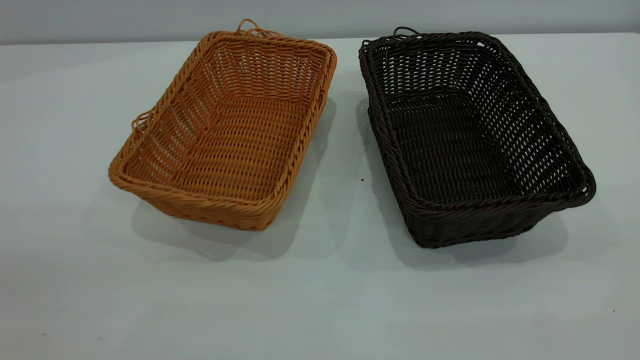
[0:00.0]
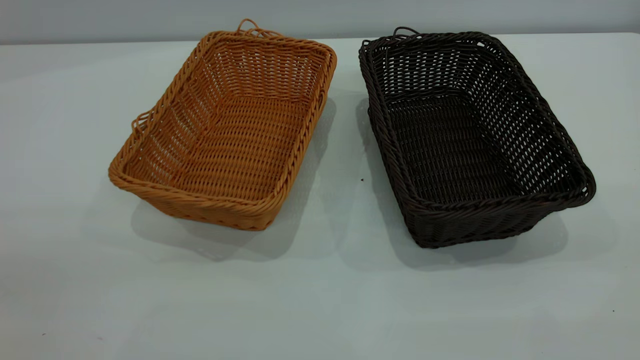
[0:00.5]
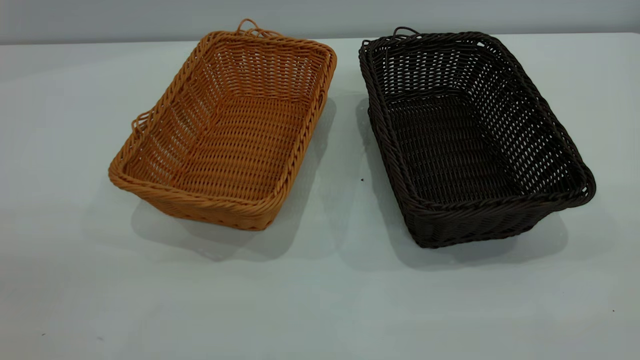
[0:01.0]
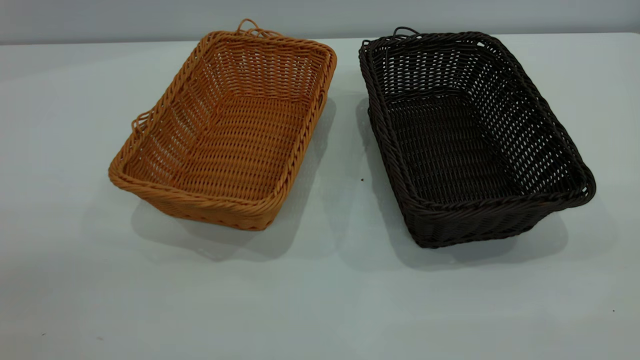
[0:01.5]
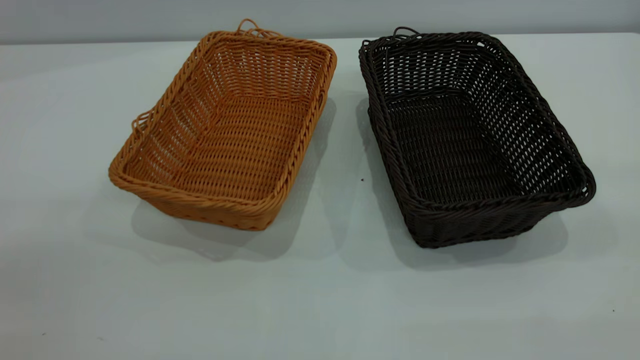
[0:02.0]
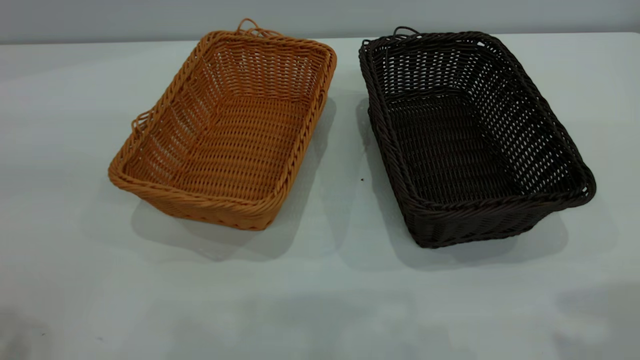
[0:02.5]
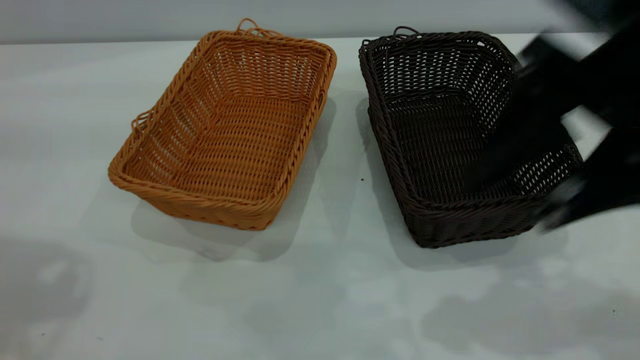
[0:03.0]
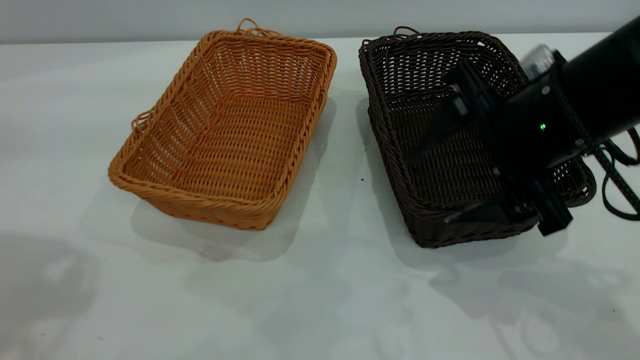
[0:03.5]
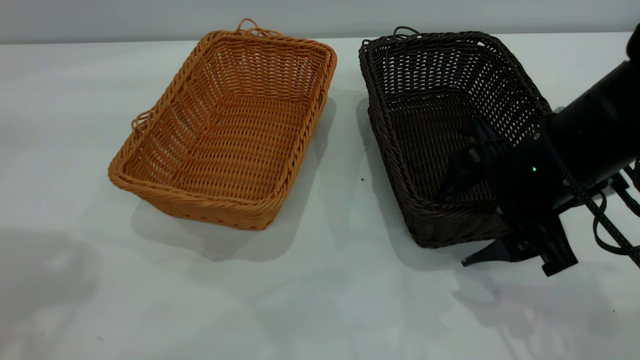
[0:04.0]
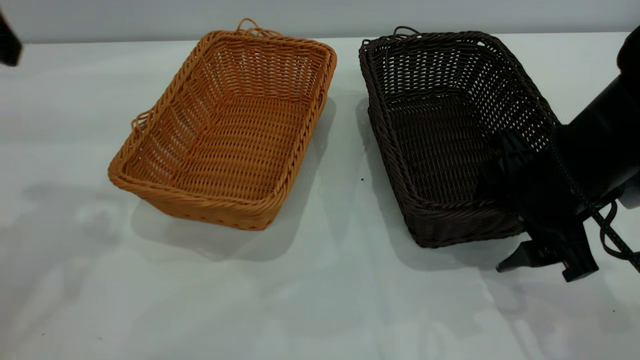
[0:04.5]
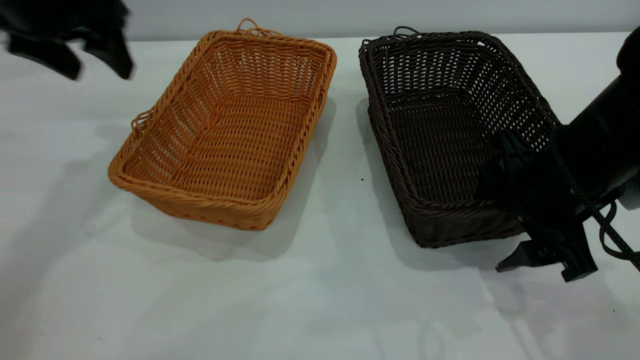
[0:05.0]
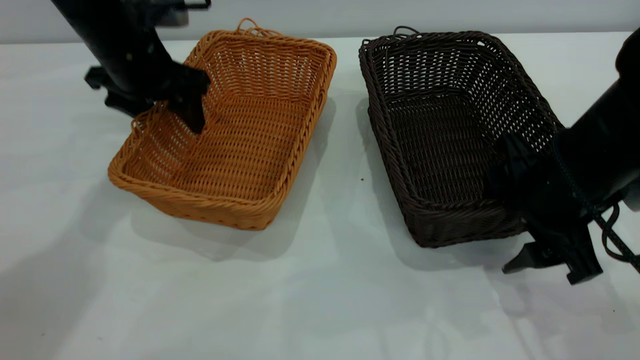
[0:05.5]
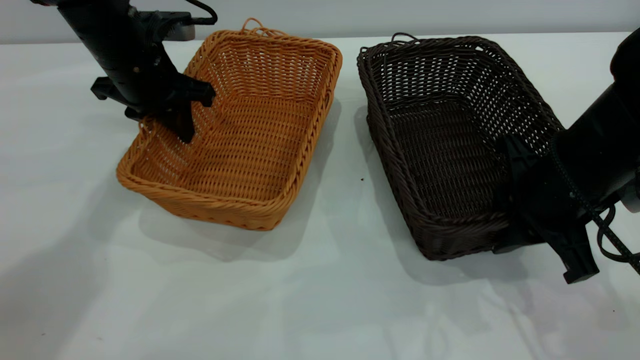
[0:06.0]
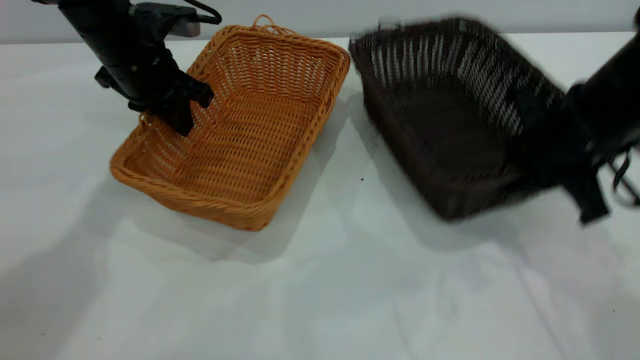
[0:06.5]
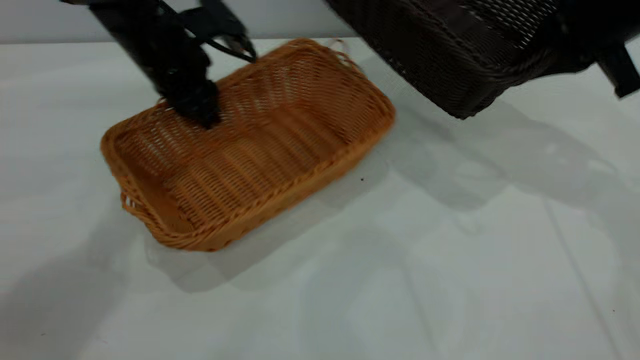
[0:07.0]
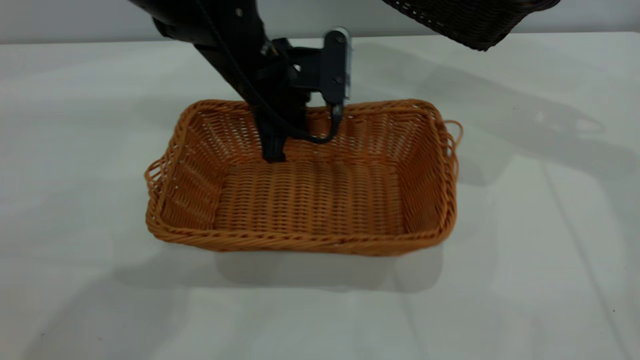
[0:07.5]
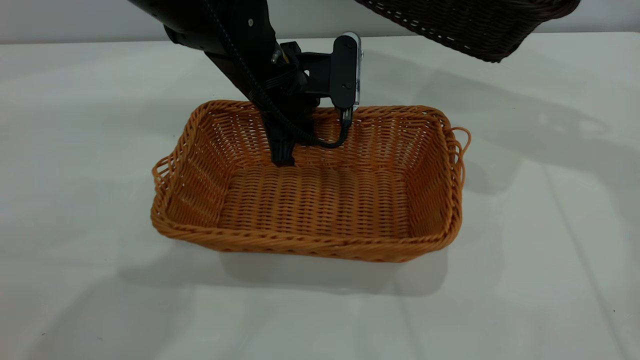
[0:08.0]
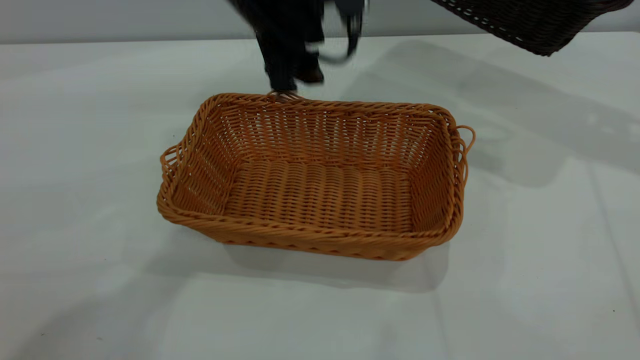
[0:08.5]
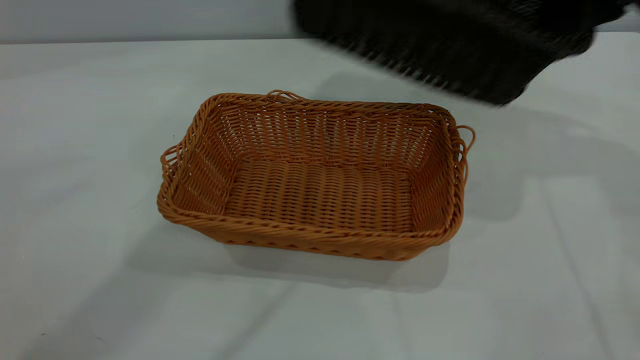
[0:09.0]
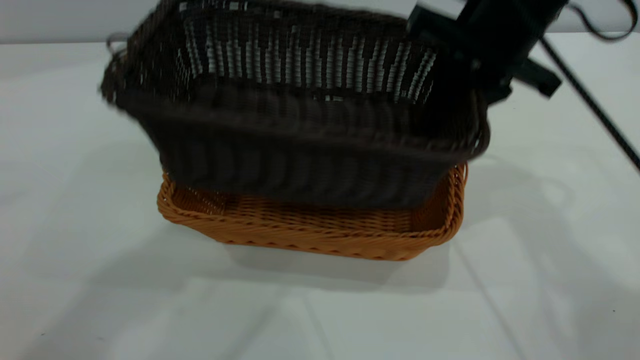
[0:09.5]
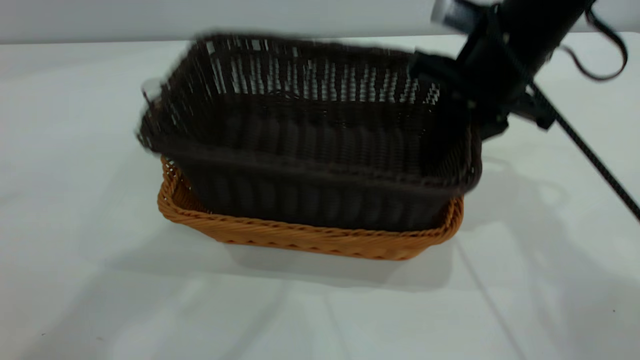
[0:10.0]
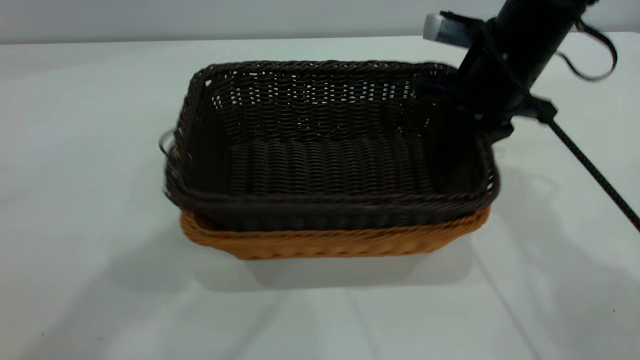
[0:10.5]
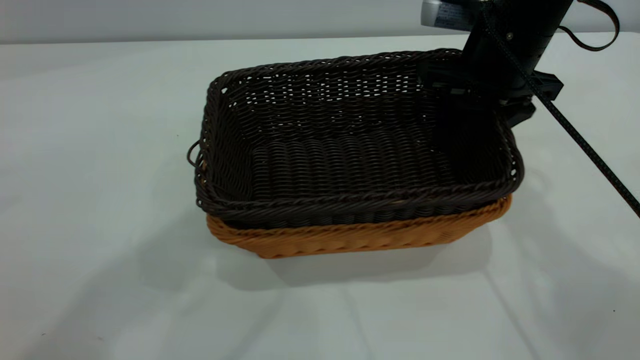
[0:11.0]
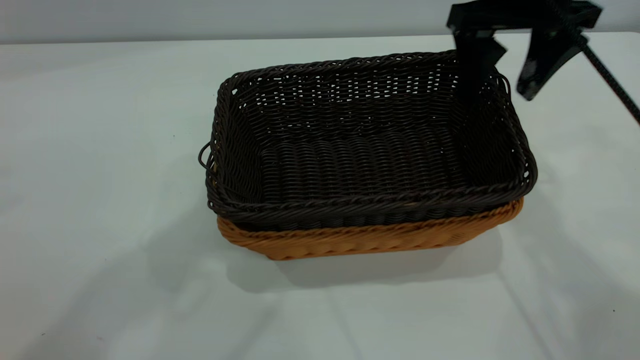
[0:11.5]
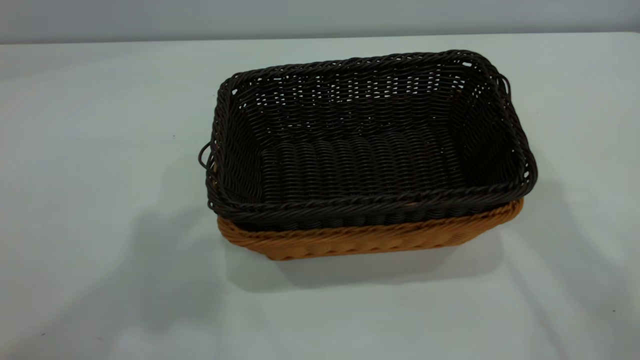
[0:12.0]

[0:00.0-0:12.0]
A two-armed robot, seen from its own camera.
Task of the whole recording: the left gripper grasp the brown basket and place it in the center of the table, the right gripper grasp the black basket and place it inside the brown one.
Step, 0:00.0 to 0:06.5: Pick up the light basket with the right gripper.
Step, 0:07.0 to 0:08.5: Place the light-colored basket in the center.
Step, 0:09.0 to 0:11.5: Place the dark basket on top of the light basket.
0:02.0 to 0:04.0: The right gripper heads downward, forward and to the left, covering some 35 cm.
0:04.0 to 0:06.0: The left gripper travels downward, forward and to the right by approximately 30 cm, and closes up; the right gripper closes its fingers.
0:06.0 to 0:08.0: The left gripper is displaced to the right by approximately 15 cm. Meanwhile the right gripper heads upward, forward and to the right, covering approximately 25 cm.
0:08.0 to 0:10.0: The right gripper moves to the left, downward and backward, some 20 cm, while the left gripper moves upward, roughly 35 cm, and opens its fingers.
0:10.0 to 0:12.0: The right gripper heads upward, covering some 25 cm, and opens its fingers; the left gripper moves backward, upward and to the left, about 10 cm.

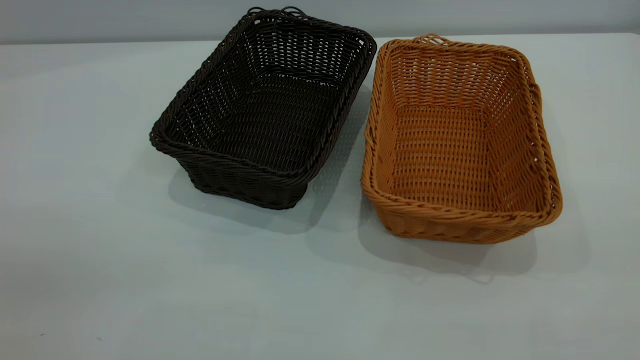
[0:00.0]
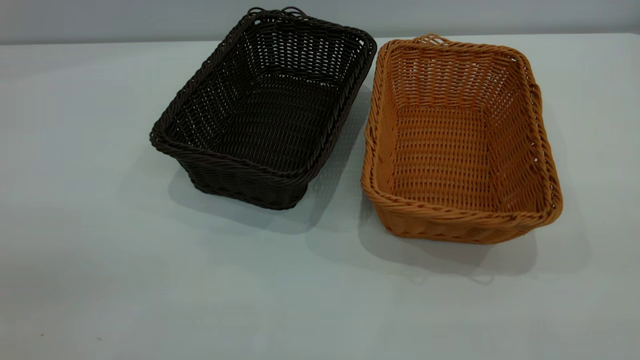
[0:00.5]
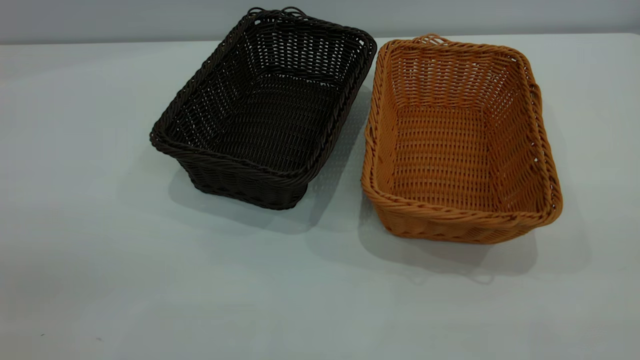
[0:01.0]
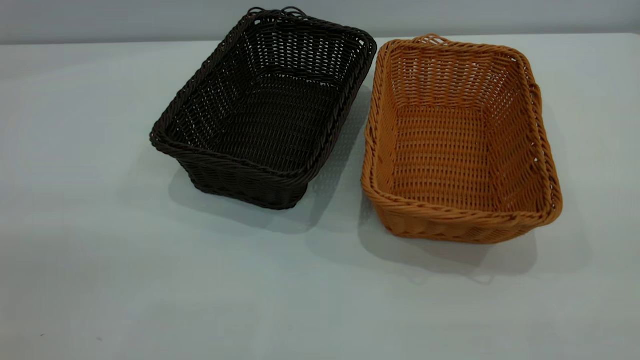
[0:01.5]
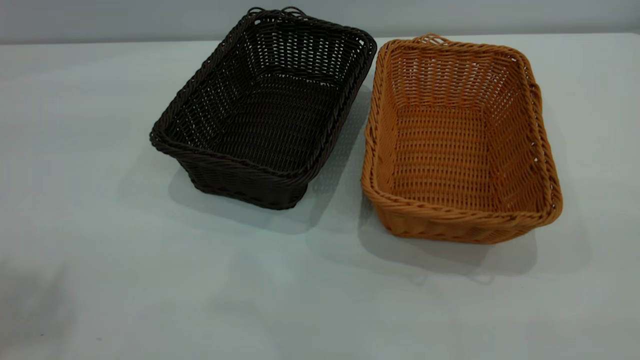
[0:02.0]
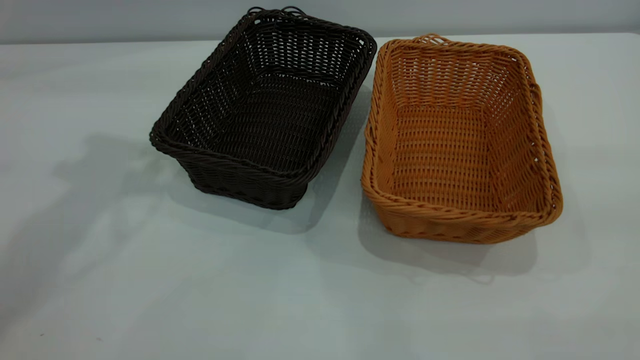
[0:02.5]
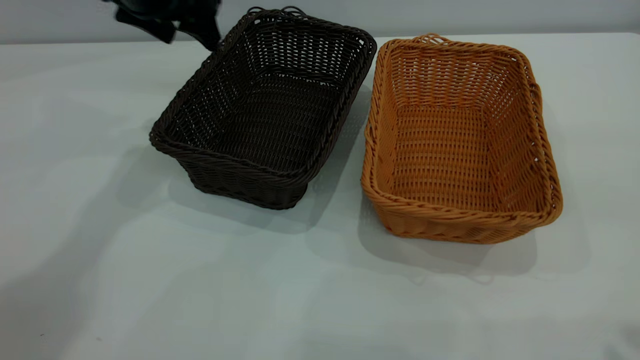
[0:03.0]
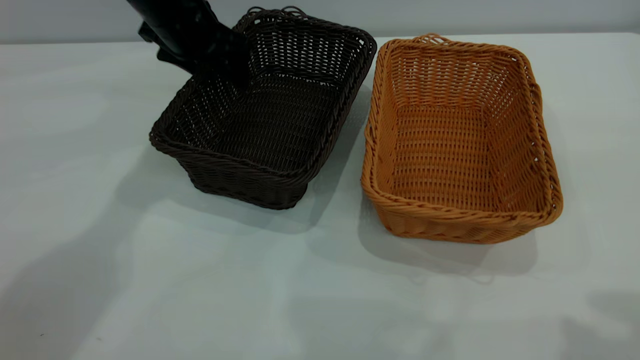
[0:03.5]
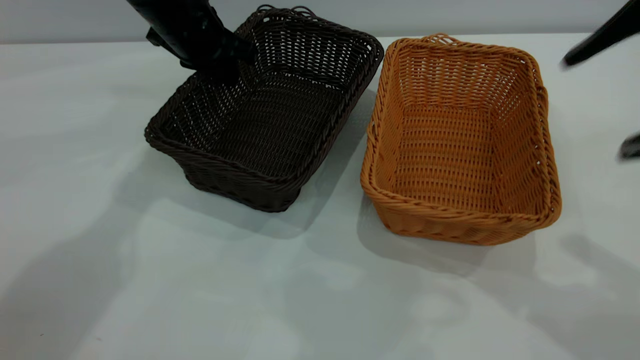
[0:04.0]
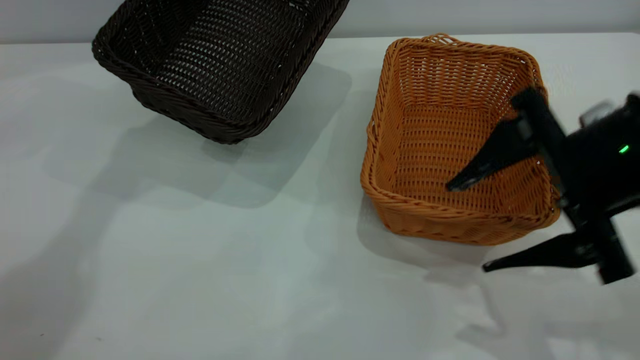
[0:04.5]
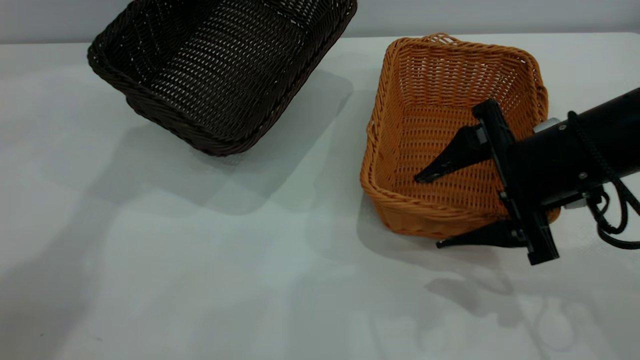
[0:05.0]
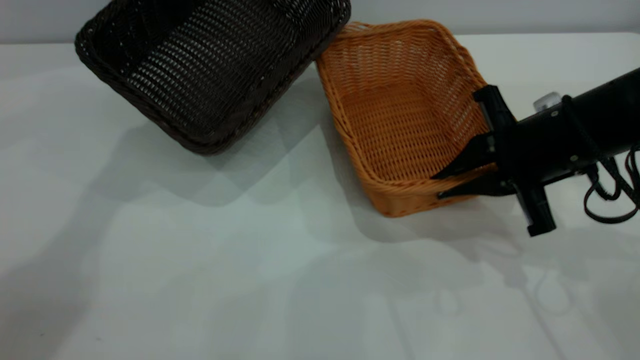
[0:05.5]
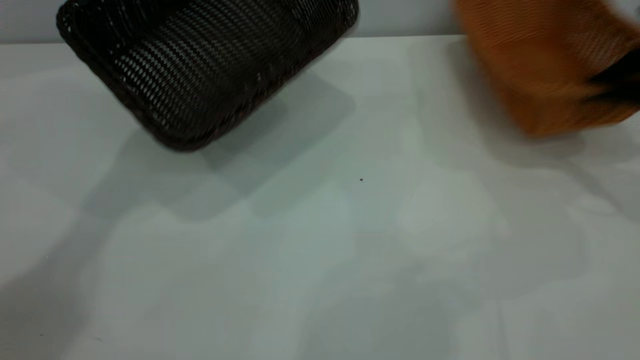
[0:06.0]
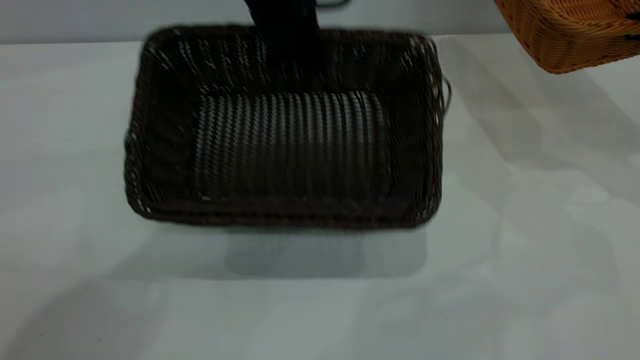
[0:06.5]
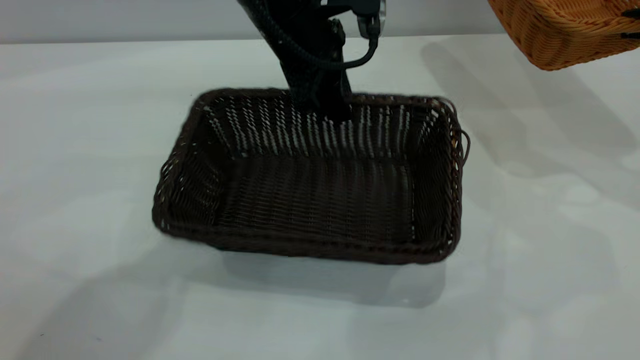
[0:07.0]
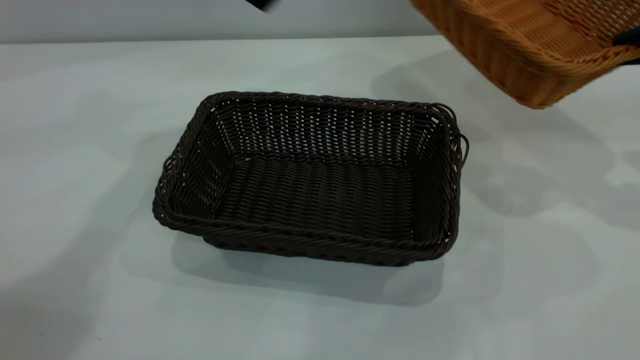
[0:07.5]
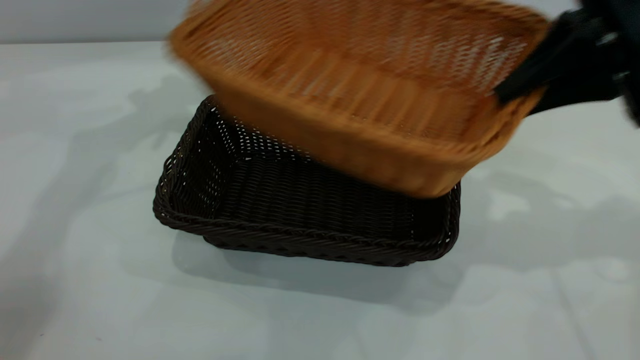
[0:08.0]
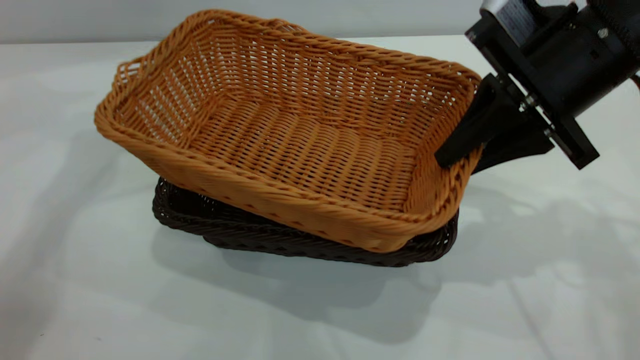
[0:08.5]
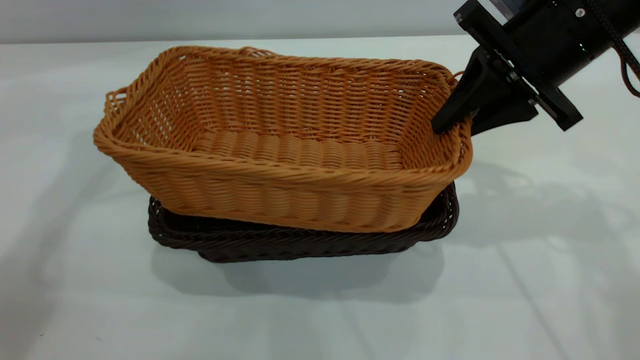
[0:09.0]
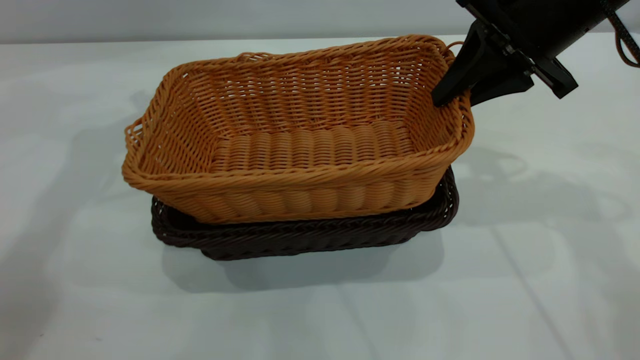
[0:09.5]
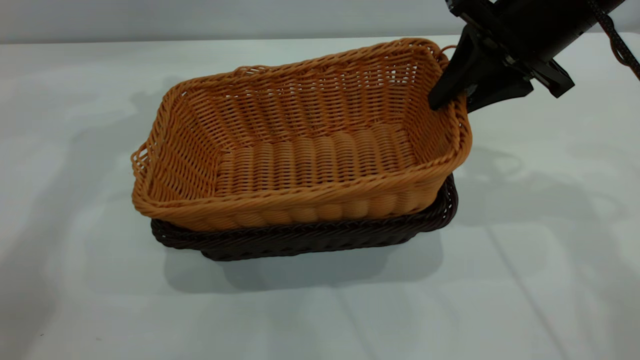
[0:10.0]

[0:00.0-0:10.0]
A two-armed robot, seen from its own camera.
Task of the whole recording: the left gripper grasp the black basket and place it in the center of the table, the right gripper grasp the brown basket and place it inside the black one.
Step, 0:00.0 to 0:06.0: Pick up the light basket with the right gripper.
Step, 0:06.5 to 0:07.0: Move the dark basket to the center of view.
0:02.0 to 0:04.0: The left gripper is displaced forward, downward and to the right by roughly 40 cm, and closes up. The right gripper is displaced forward by about 20 cm.
0:04.0 to 0:06.0: The right gripper goes some 25 cm forward, to the right and downward, and closes up, while the left gripper moves upward, about 10 cm.
0:06.0 to 0:08.0: The left gripper reaches about 15 cm to the right, then returns, and opens its fingers. Meanwhile the right gripper is displaced to the left and upward by roughly 15 cm.
0:08.0 to 0:10.0: The right gripper shifts by some 5 cm.
